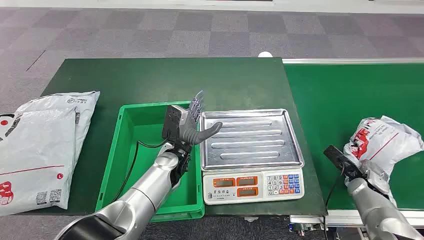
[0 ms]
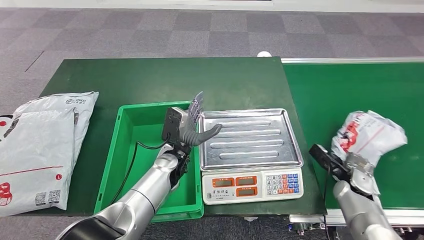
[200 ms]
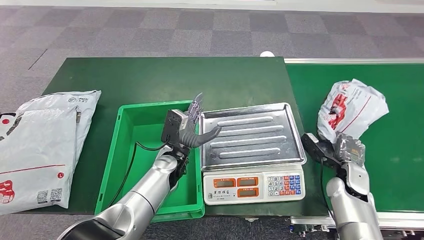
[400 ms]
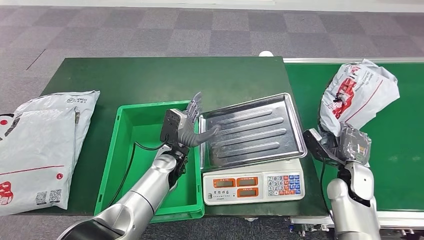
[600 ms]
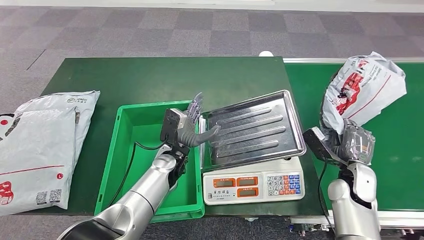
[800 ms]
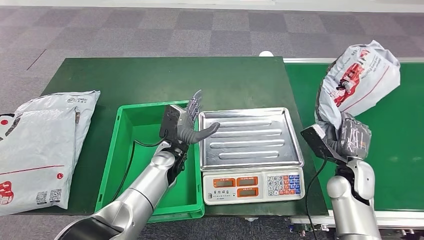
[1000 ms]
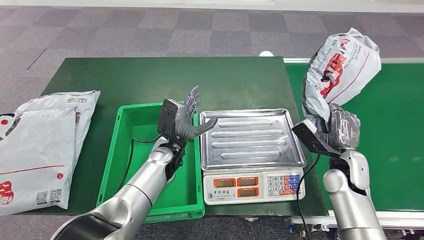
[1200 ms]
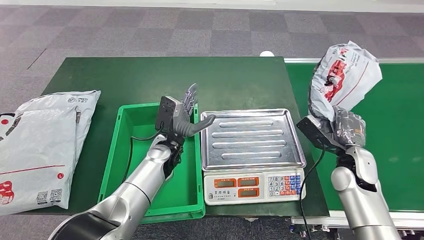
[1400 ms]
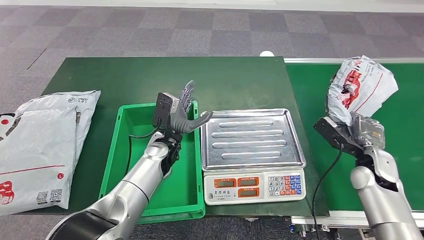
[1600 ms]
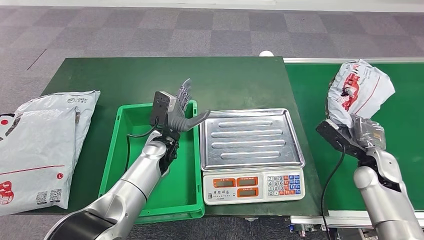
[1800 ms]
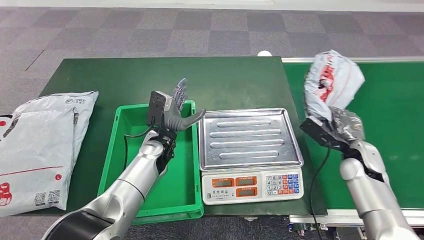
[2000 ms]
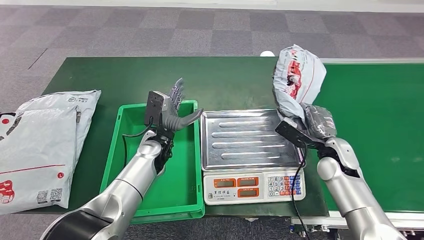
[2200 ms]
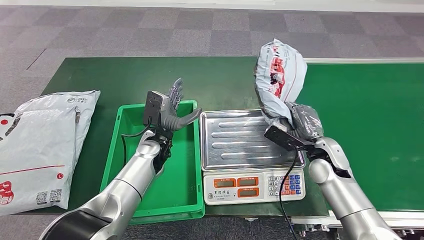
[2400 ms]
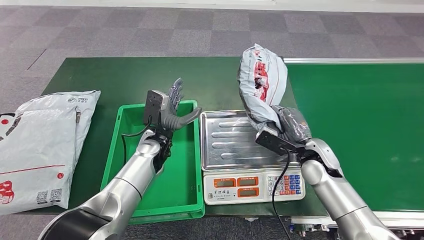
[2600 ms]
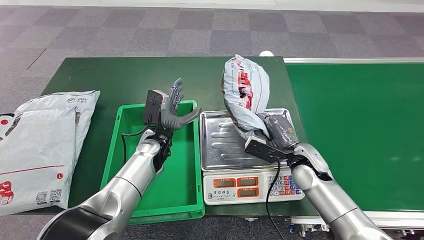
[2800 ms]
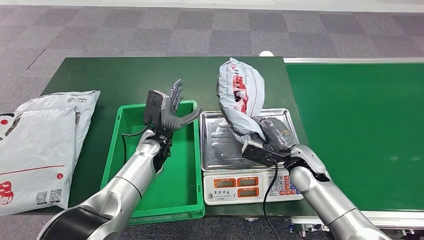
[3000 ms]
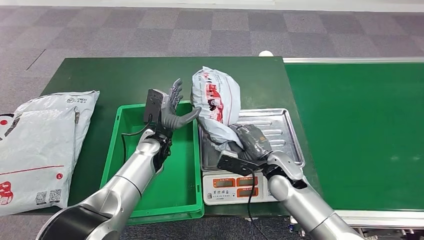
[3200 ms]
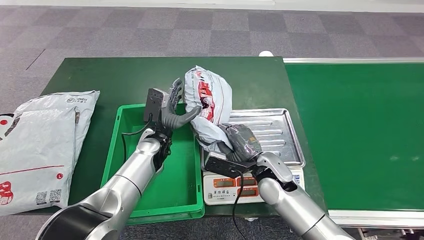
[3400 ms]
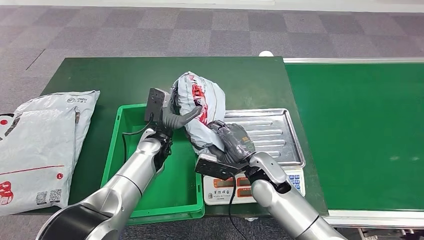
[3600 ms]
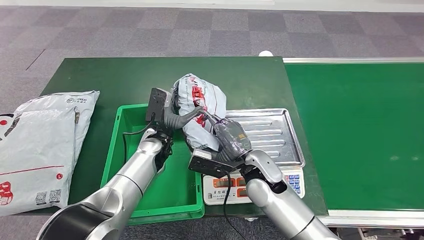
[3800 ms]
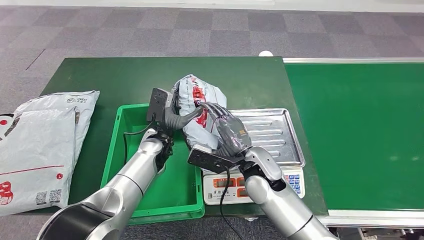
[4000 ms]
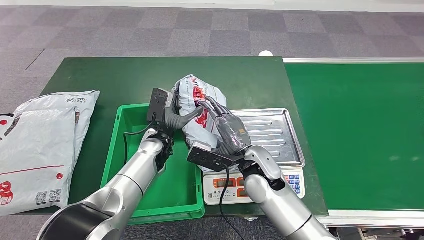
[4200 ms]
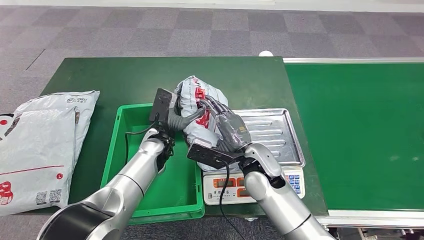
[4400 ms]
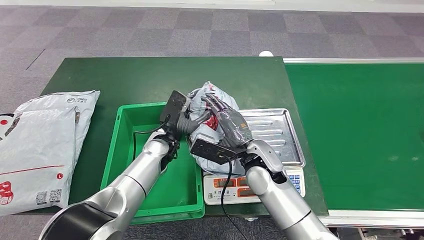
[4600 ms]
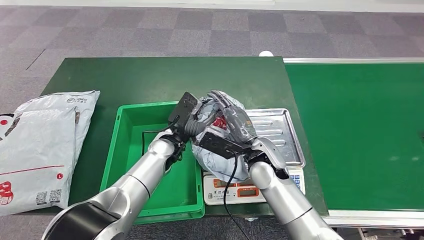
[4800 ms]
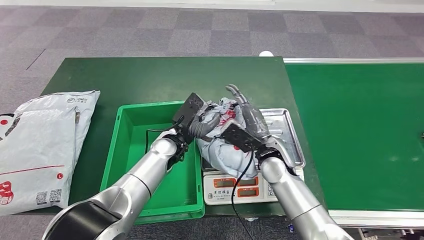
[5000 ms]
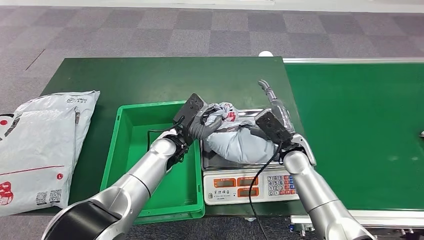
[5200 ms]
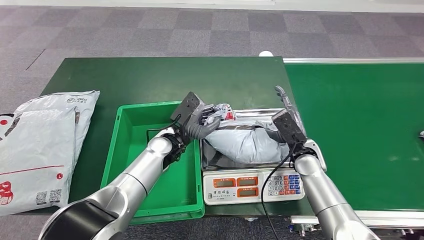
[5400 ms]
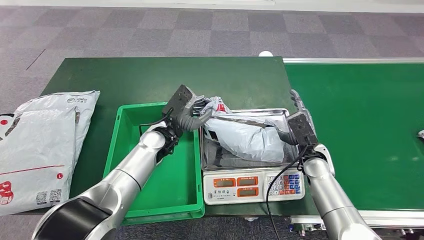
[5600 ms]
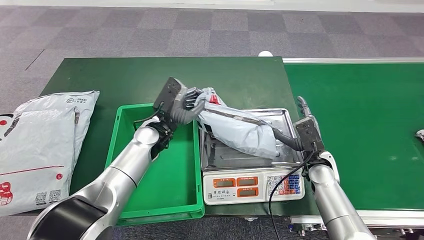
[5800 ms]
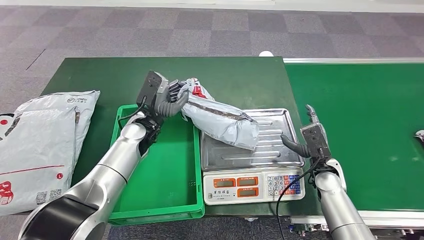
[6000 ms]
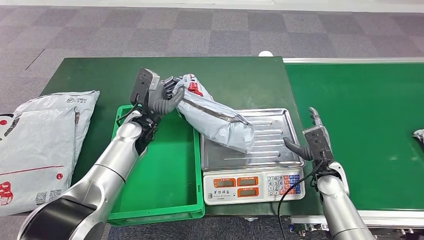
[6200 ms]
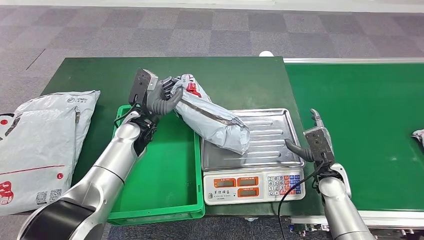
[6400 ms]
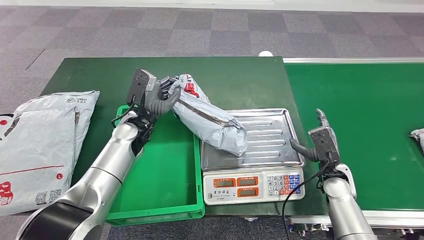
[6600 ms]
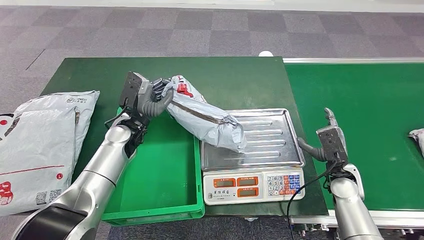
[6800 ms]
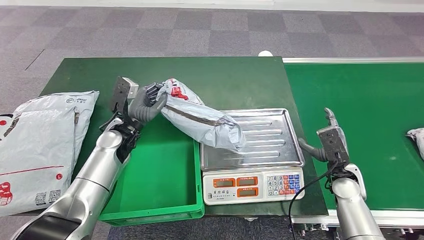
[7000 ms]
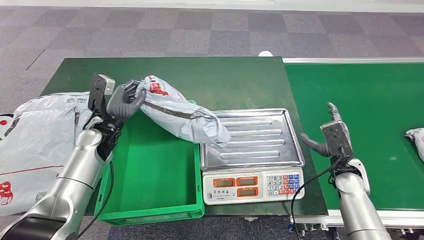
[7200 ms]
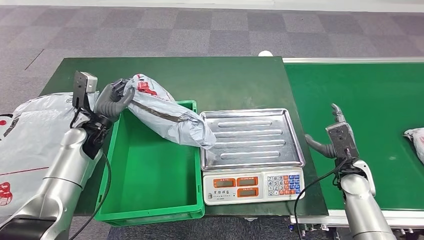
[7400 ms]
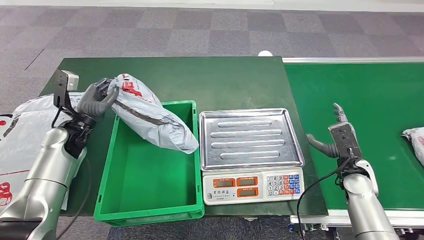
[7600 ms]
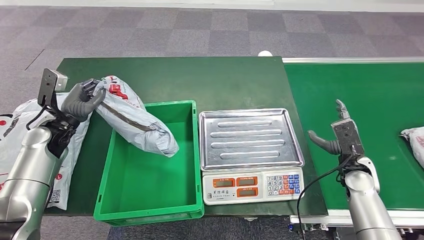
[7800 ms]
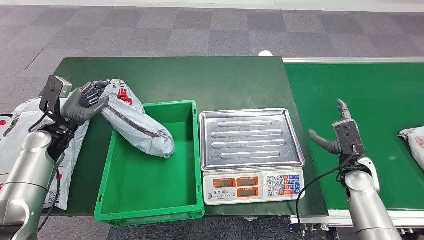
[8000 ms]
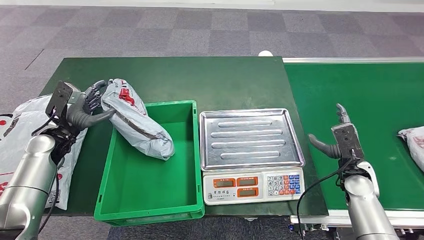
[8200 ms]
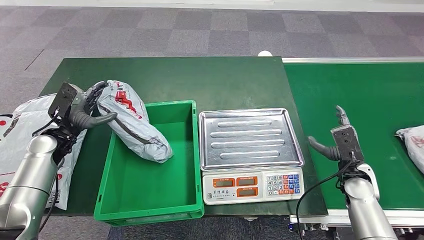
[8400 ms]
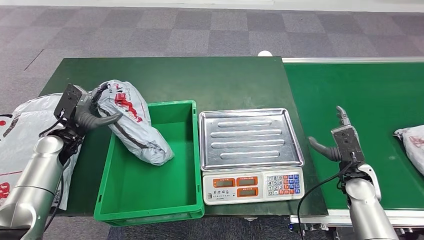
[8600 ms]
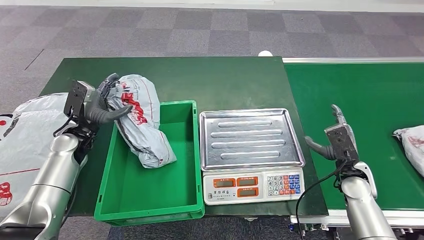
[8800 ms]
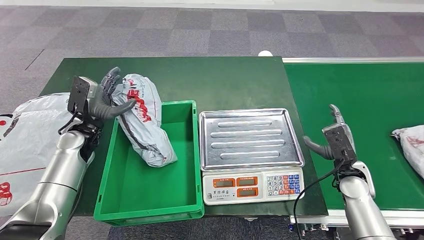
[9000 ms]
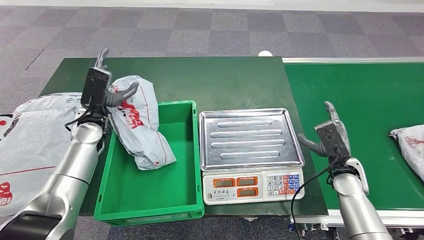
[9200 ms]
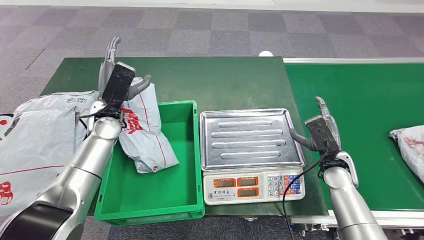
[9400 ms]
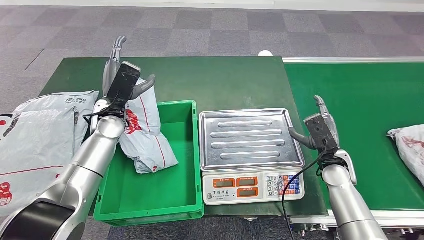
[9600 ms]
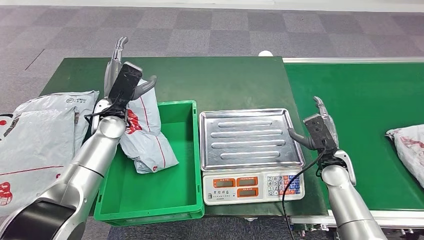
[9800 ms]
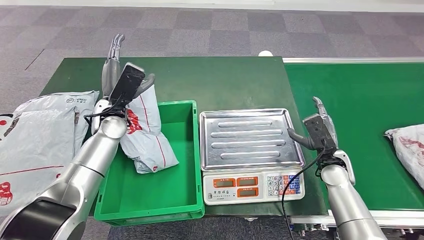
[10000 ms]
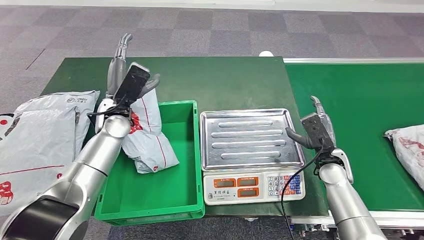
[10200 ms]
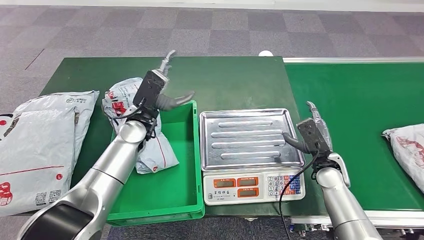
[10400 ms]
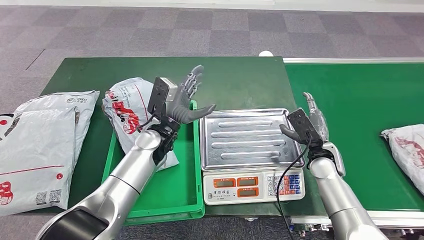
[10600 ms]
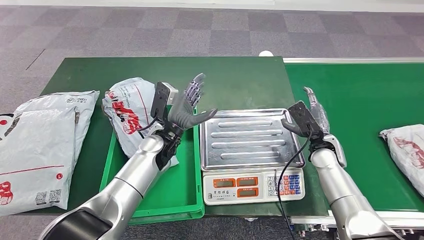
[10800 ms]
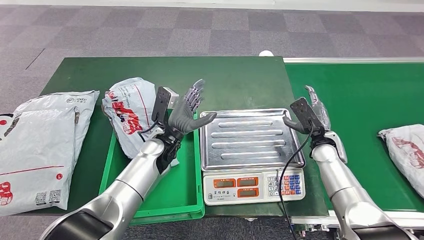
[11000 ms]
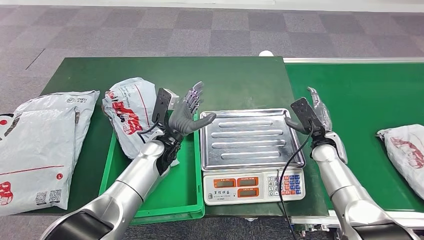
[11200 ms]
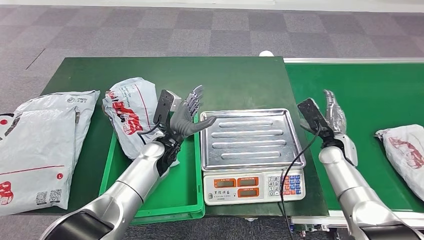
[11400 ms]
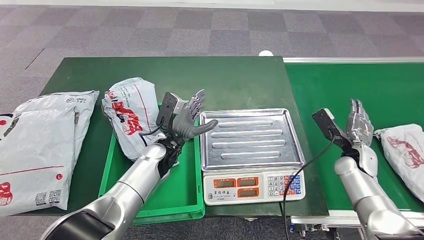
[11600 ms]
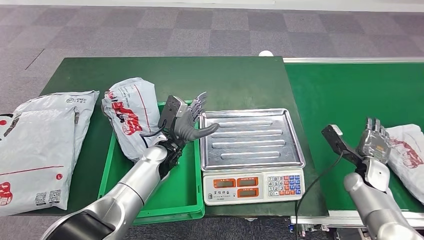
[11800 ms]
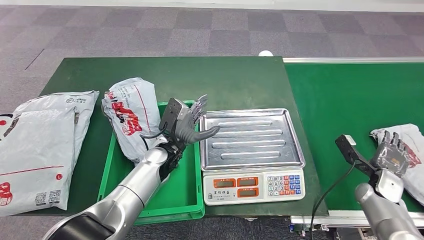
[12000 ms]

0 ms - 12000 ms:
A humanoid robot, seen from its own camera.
Step, 0 ms - 1000 ms: Take the parcel off the conveyor belt.
Step, 1200 ms - 5000 ms: Place the parcel onto the inbound machine.
Step, 5200 ms - 7400 ms: Pick up the parcel from the inbound machine.
Step, 7600 ms - 10200 ms: Put the parcel inside the courier box.
3000 ms - 4400 ms: The right hand heads to the left and upward, covering approximately 15 cm.

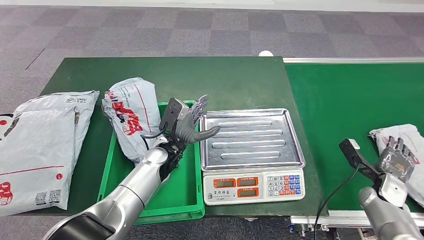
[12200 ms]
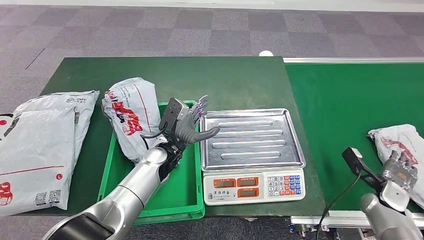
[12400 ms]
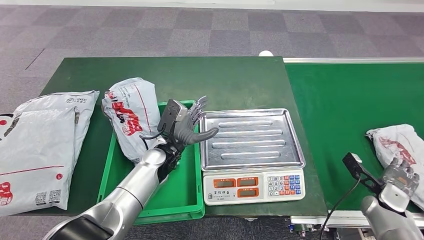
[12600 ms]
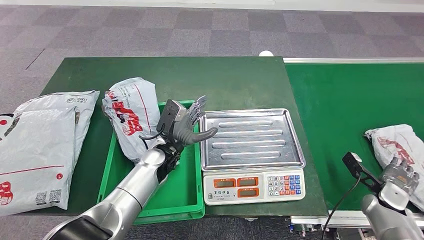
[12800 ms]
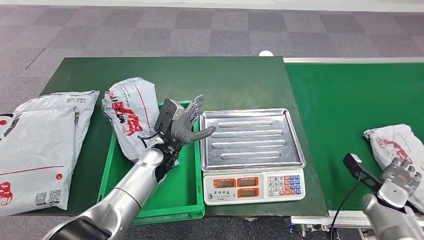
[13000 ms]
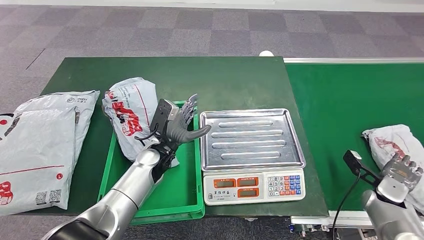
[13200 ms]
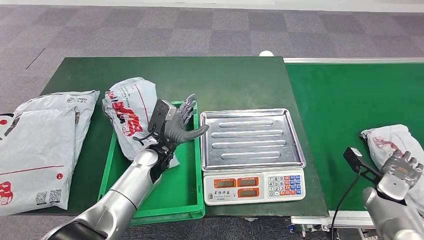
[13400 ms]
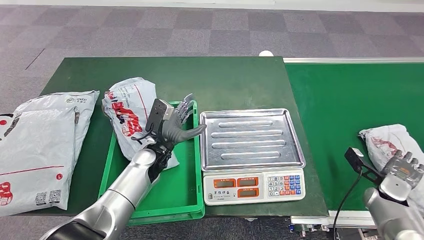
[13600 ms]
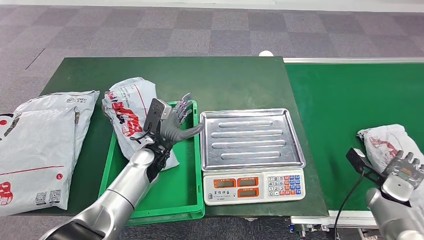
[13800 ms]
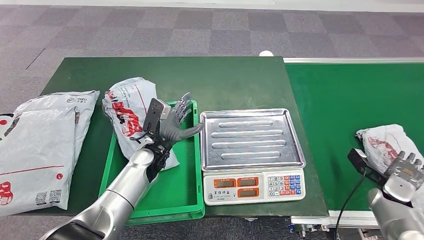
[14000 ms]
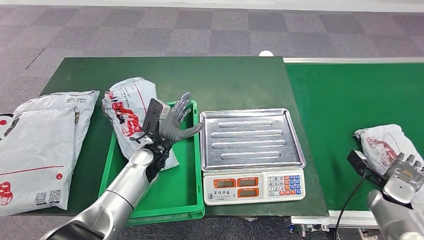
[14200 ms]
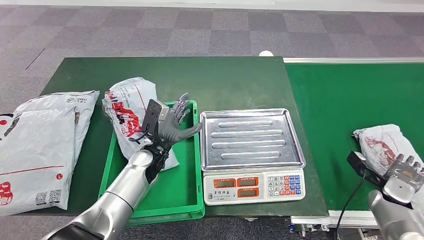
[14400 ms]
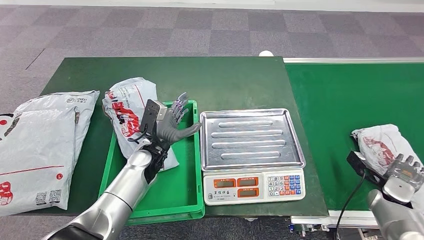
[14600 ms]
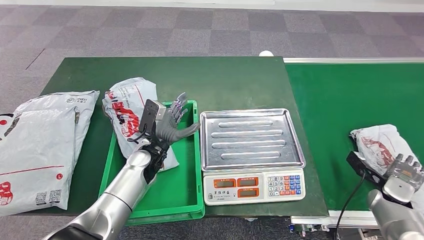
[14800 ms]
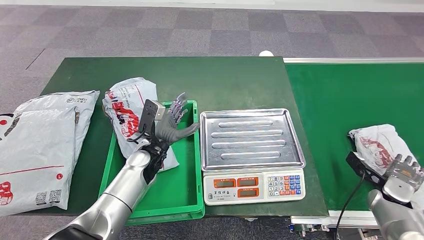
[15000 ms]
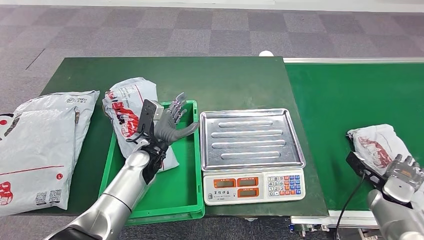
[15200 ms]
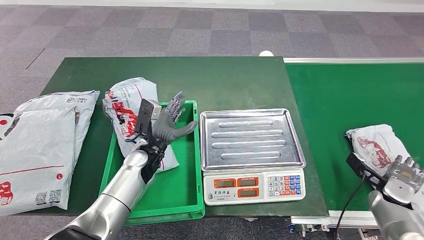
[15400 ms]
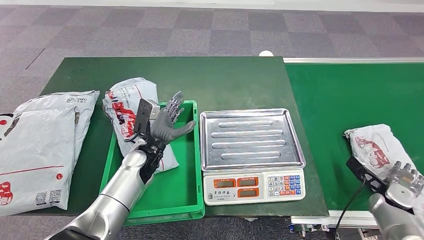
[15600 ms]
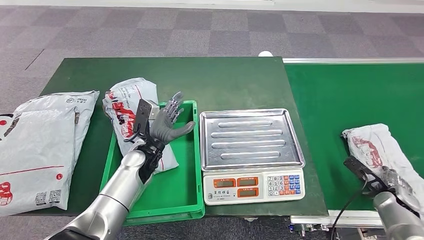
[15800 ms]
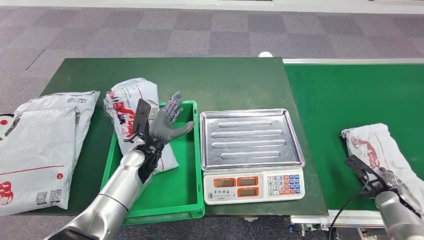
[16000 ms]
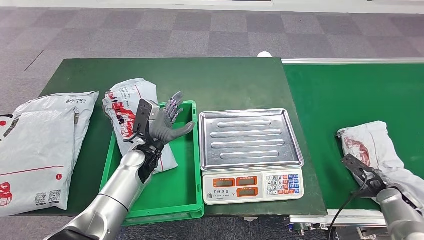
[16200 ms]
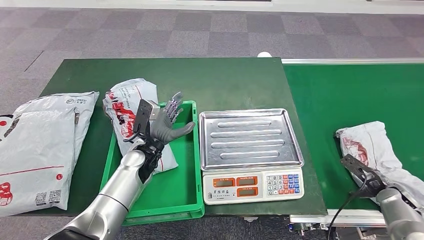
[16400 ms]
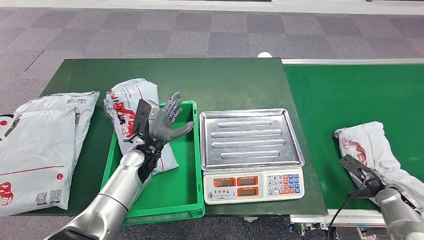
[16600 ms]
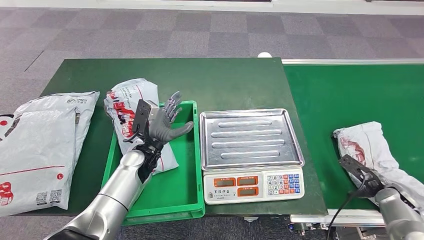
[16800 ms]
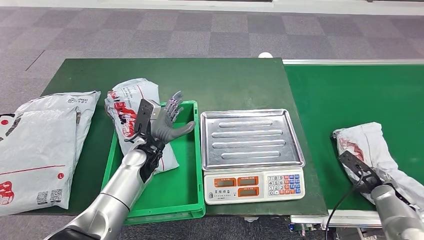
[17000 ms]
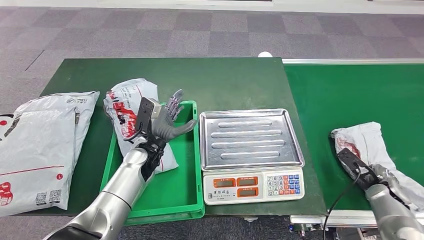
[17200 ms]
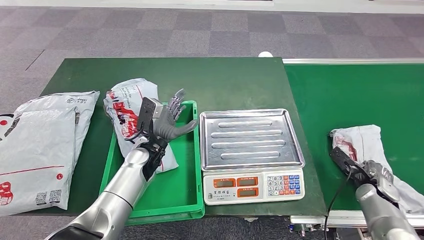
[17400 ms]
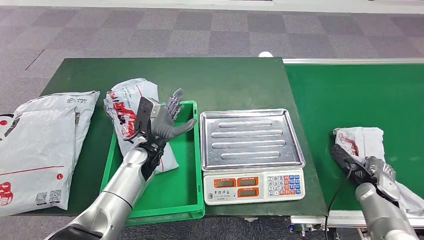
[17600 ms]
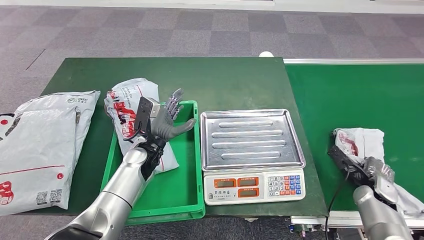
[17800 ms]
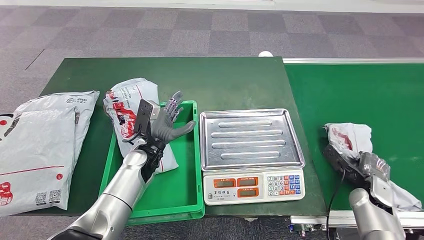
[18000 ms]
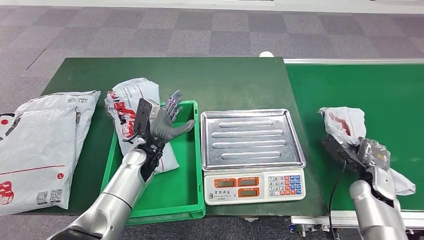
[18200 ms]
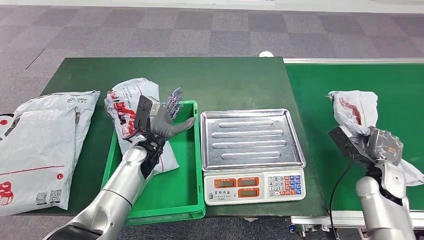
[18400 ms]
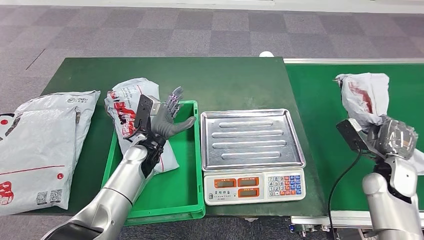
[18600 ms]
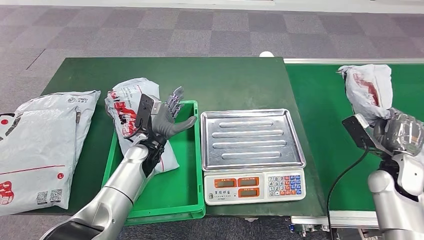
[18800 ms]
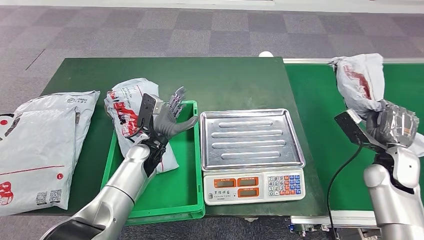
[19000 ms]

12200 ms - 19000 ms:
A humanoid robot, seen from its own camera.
Step, 16400 ms - 18600 ms: Pick up the parcel from the conveyor belt.
13600 ms - 15000 ms: Both hands stay about where they are.
17600 ms - 19000 ms: The right hand travels upward by approximately 10 cm.
